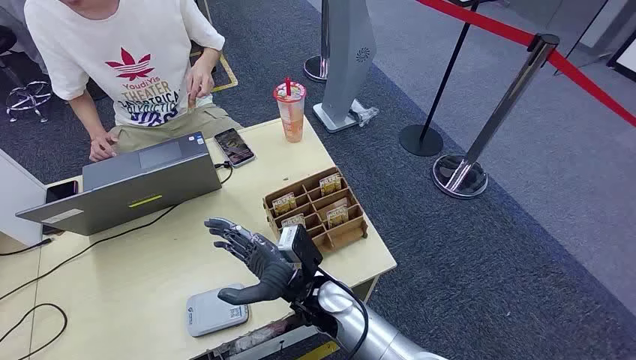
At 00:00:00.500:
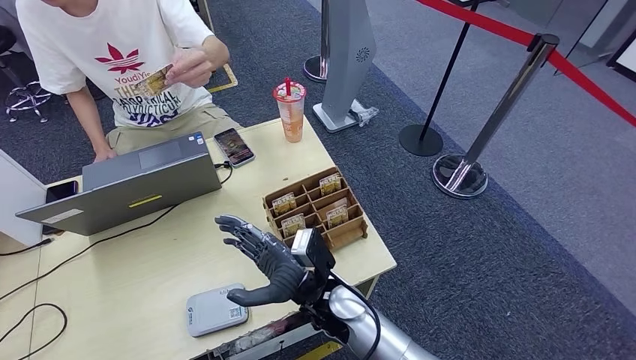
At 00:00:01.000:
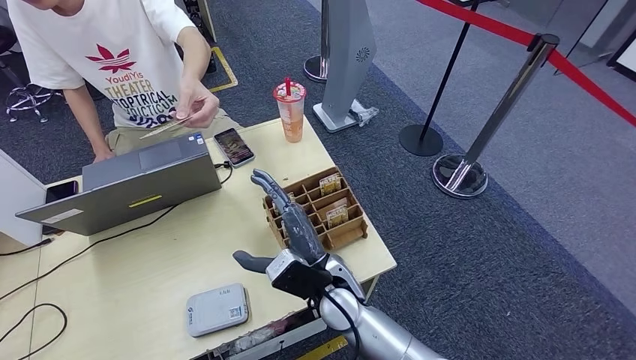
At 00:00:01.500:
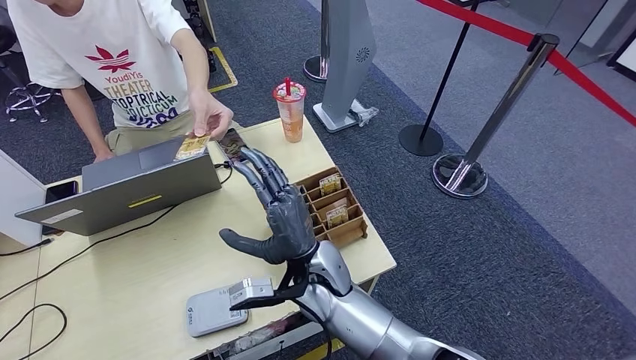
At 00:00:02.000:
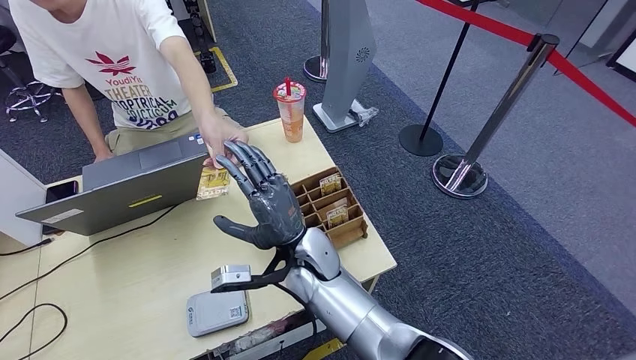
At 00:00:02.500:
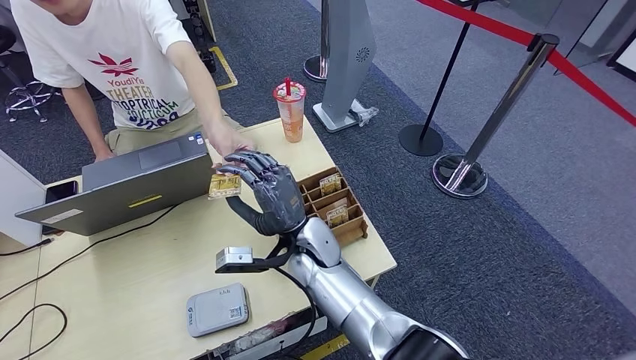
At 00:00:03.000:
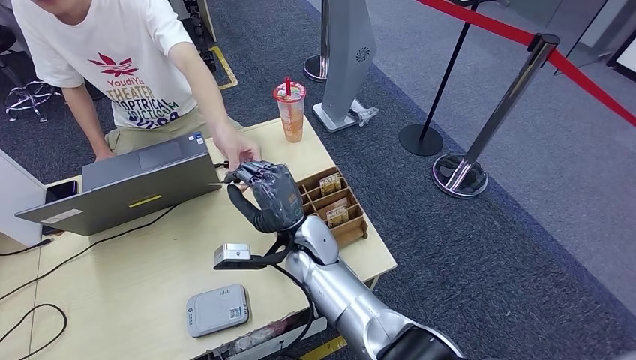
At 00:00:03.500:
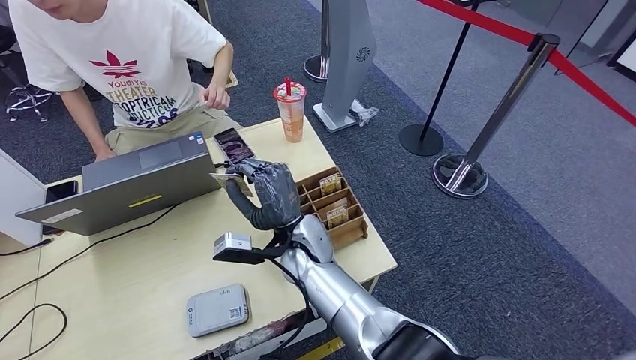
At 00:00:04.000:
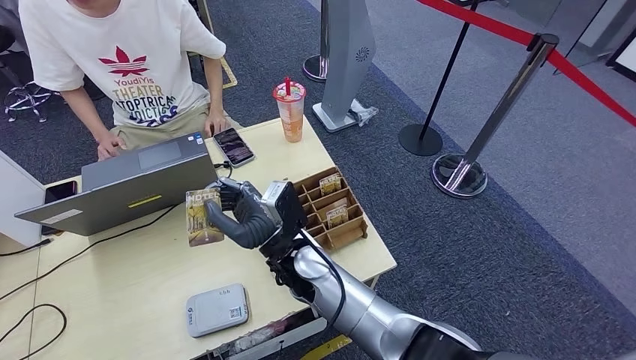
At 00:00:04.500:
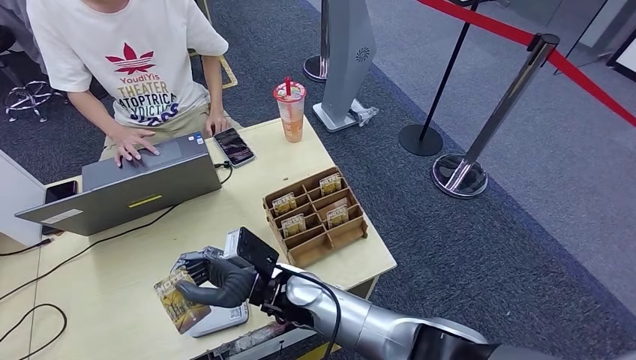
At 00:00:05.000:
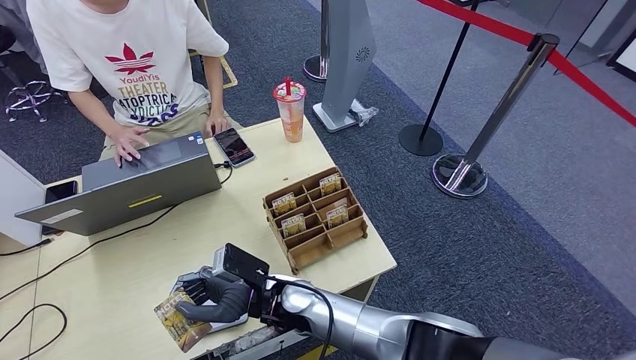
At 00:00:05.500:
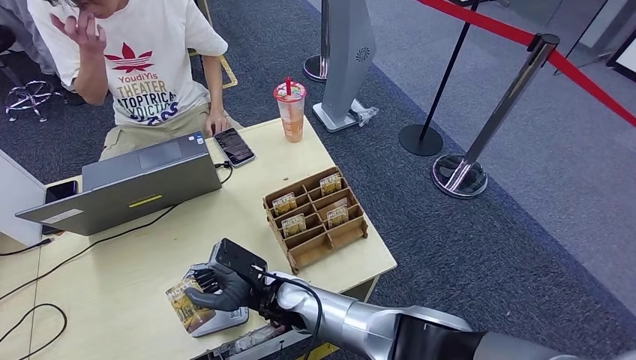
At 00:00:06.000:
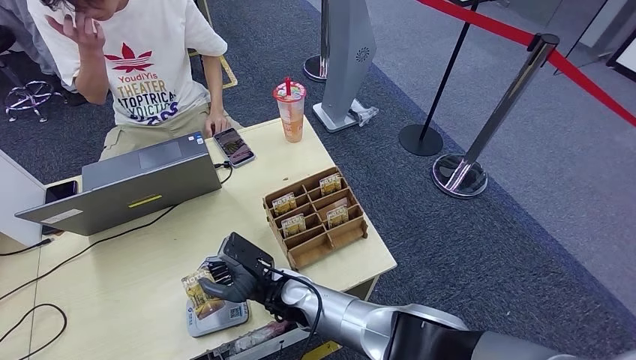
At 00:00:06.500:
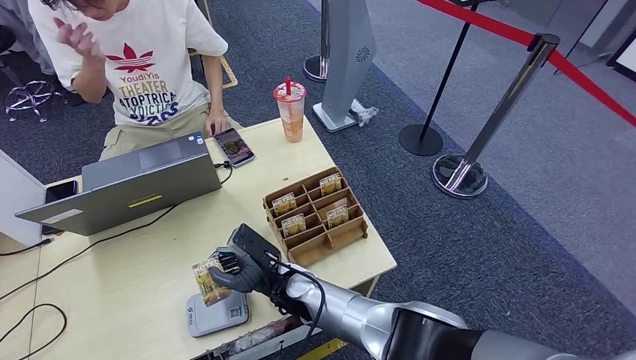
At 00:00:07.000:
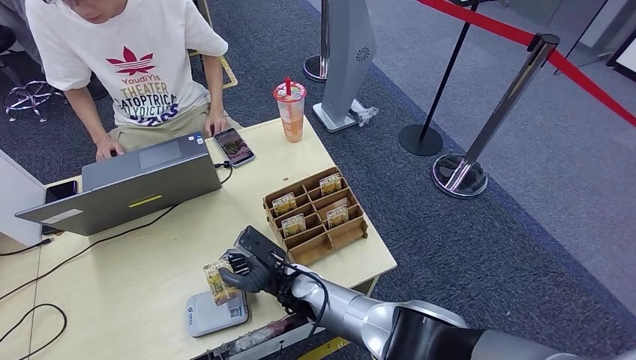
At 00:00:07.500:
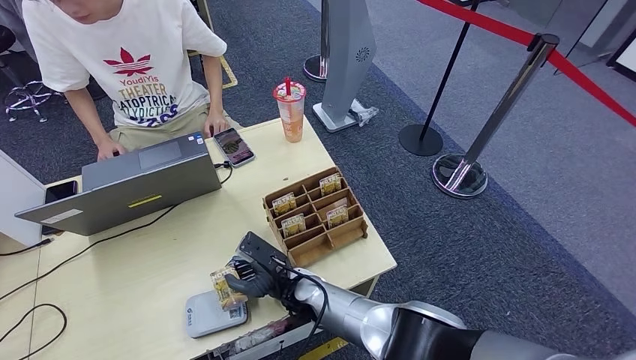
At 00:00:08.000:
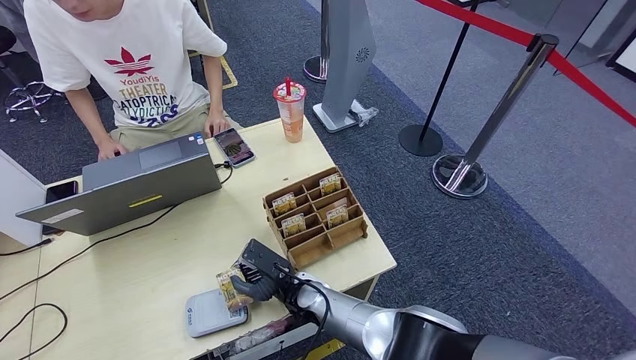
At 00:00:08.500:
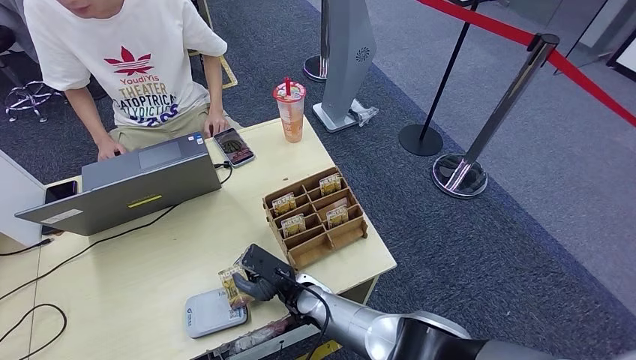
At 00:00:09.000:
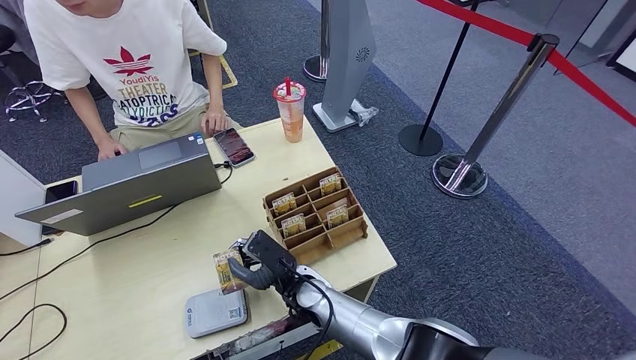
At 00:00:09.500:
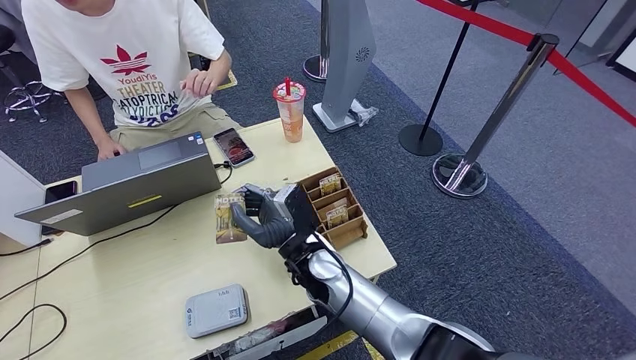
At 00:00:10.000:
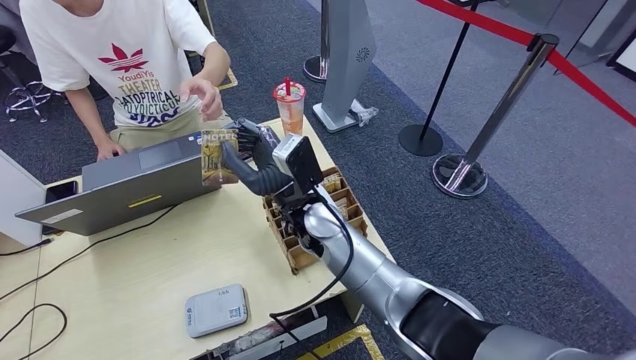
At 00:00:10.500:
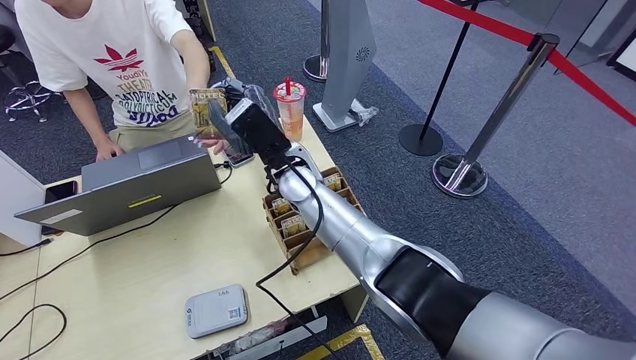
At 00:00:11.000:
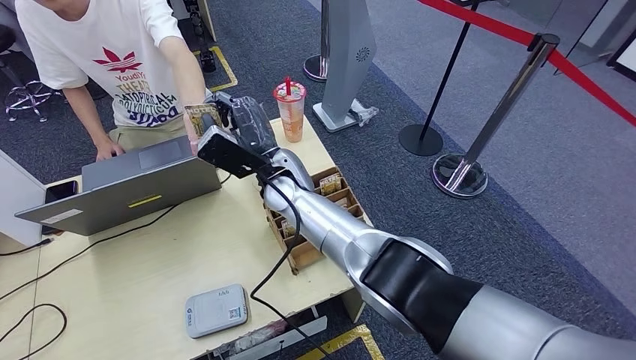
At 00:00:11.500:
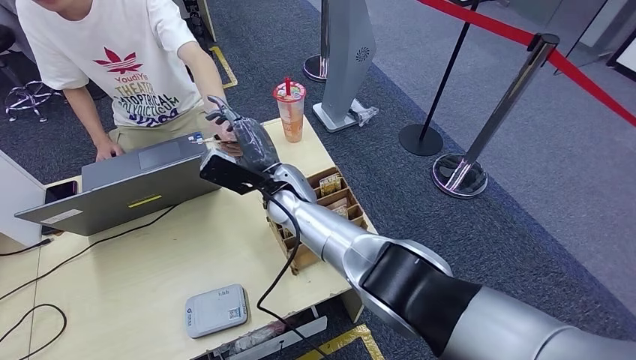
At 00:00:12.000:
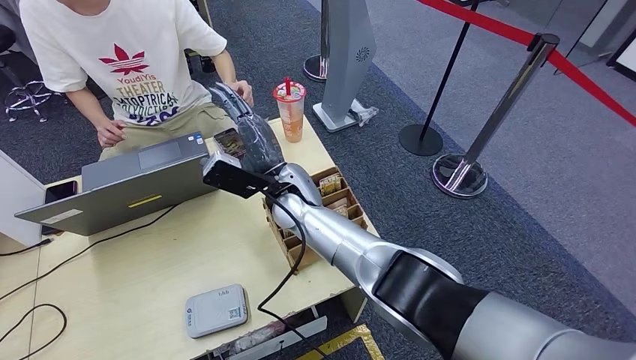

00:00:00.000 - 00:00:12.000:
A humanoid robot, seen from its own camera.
Step, 00:00:00.000 - 00:00:03.000: Take the ID card from the person's hand.
Step, 00:00:03.500 - 00:00:08.500: Place the ID card on the card reader.
Step, 00:00:09.000 - 00:00:11.500: Hand the ID card to the person.
00:00:04.000 - 00:00:06.000: The right hand travels downward by roughly 10 cm.
00:00:06.000 - 00:00:08.000: The right hand shifts by approximately 5 cm.
00:00:08.000 - 00:00:10.000: The right hand shifts some 20 cm upward.
00:00:10.000 - 00:00:12.000: The right hand heads forward, covering some 5 cm.

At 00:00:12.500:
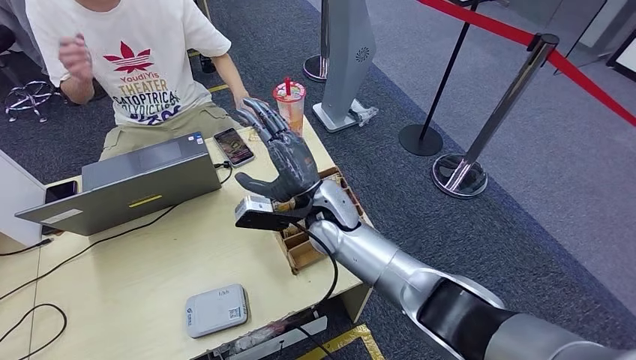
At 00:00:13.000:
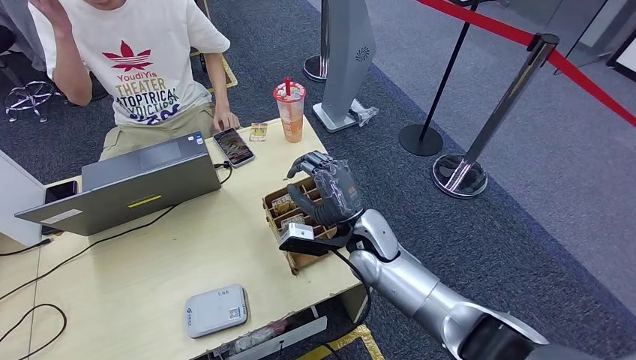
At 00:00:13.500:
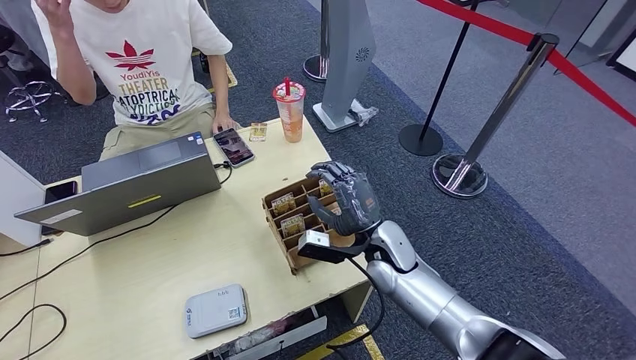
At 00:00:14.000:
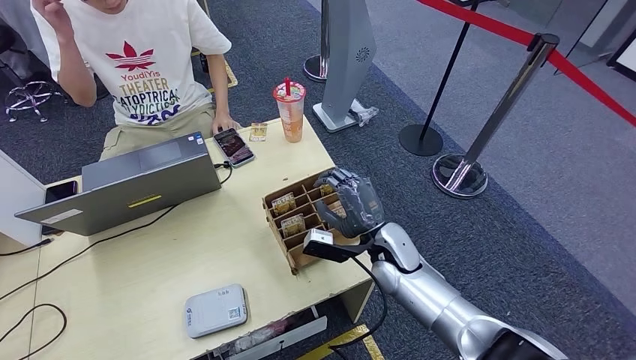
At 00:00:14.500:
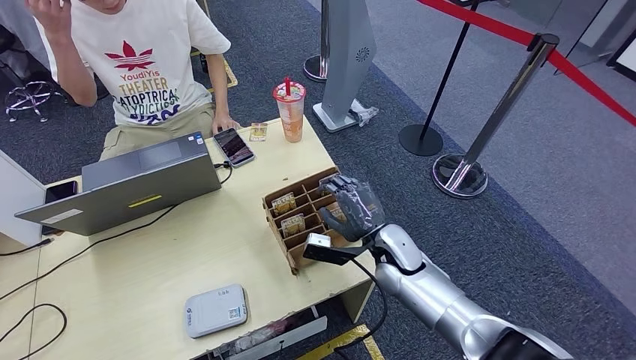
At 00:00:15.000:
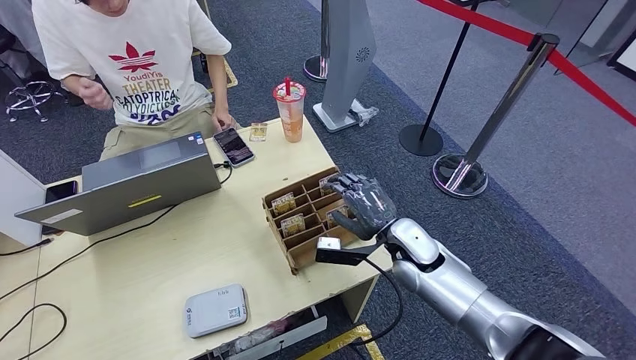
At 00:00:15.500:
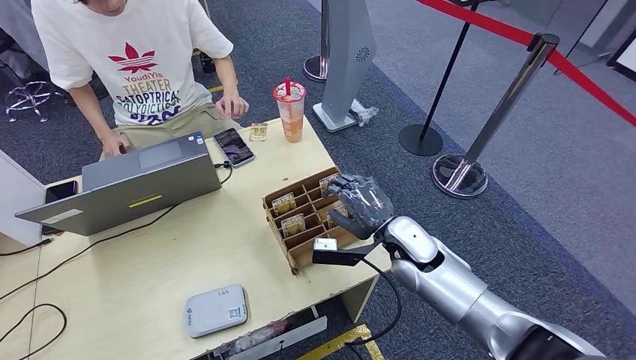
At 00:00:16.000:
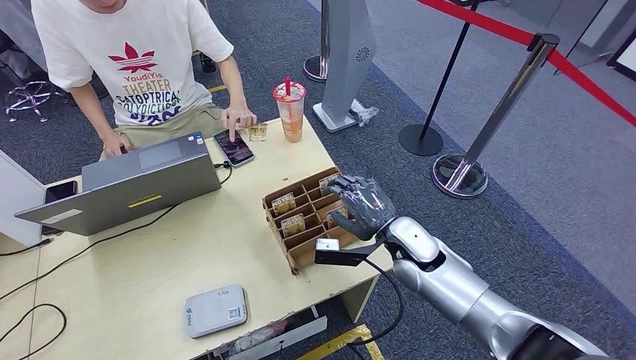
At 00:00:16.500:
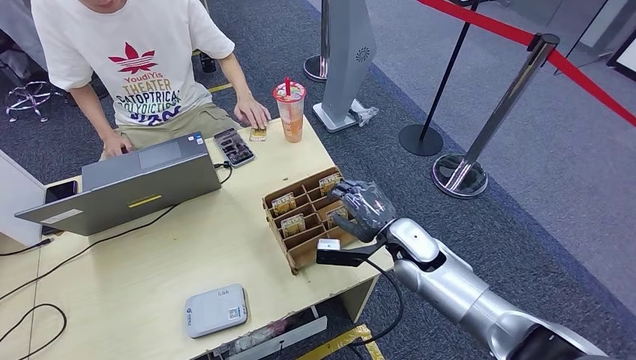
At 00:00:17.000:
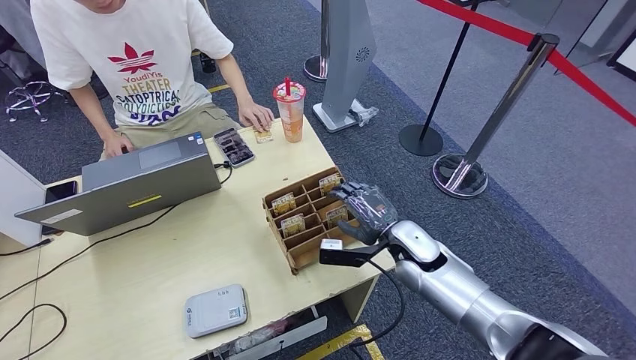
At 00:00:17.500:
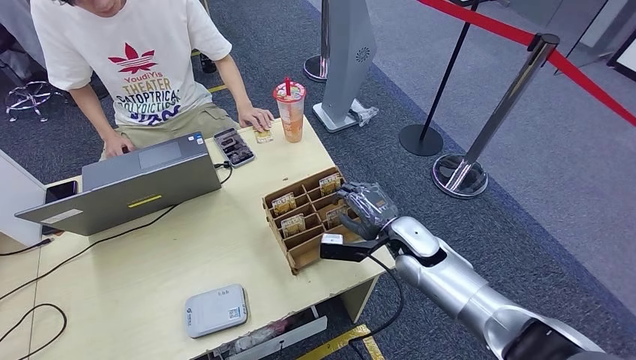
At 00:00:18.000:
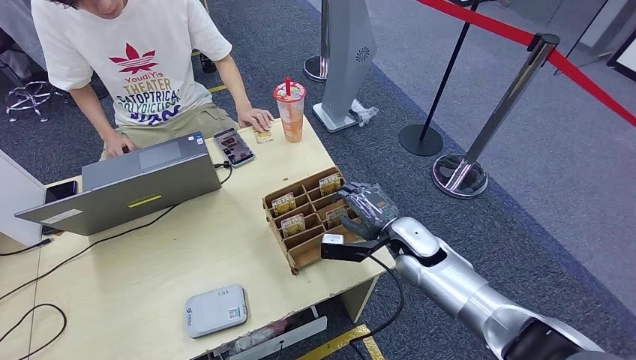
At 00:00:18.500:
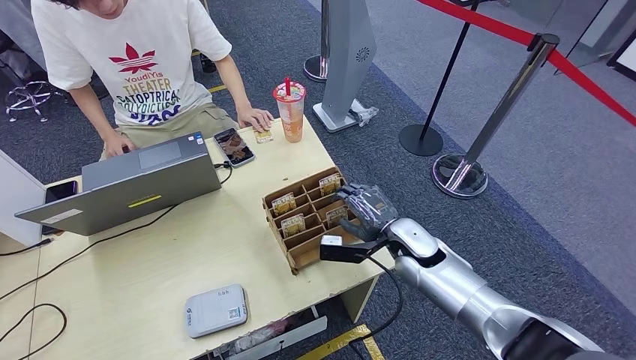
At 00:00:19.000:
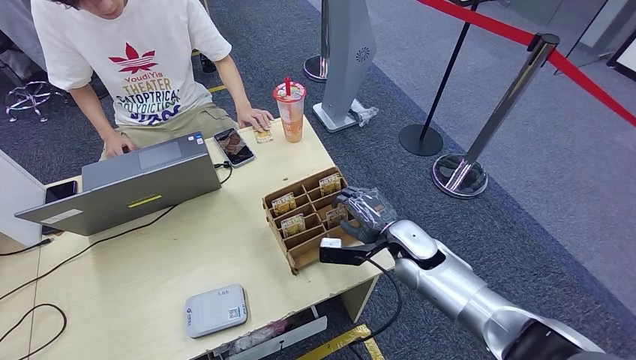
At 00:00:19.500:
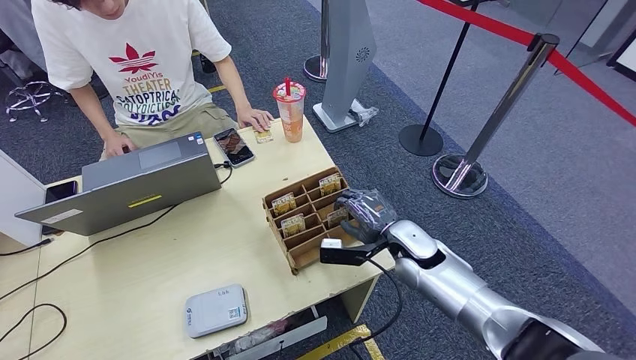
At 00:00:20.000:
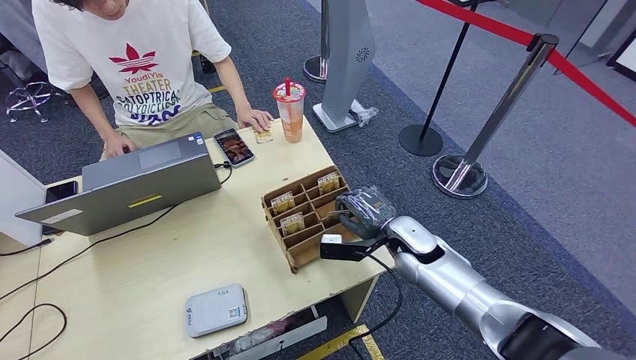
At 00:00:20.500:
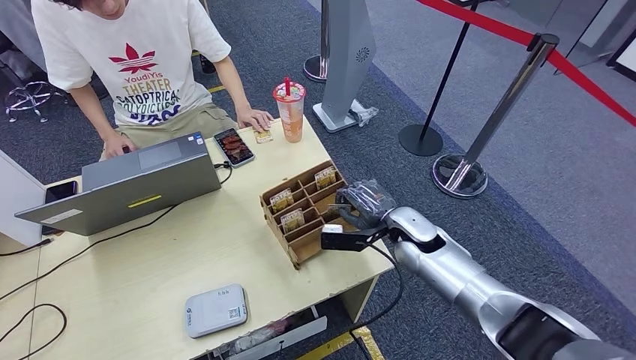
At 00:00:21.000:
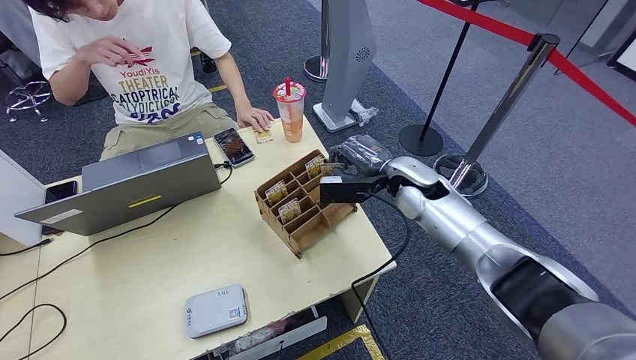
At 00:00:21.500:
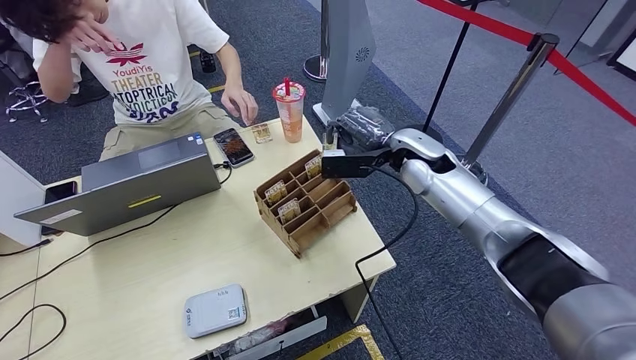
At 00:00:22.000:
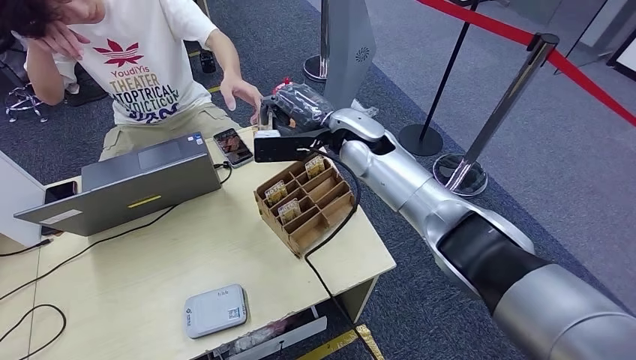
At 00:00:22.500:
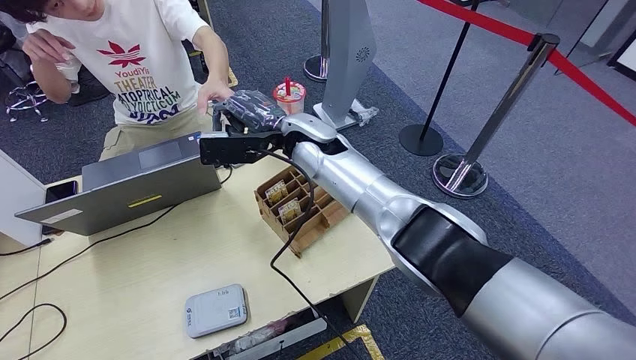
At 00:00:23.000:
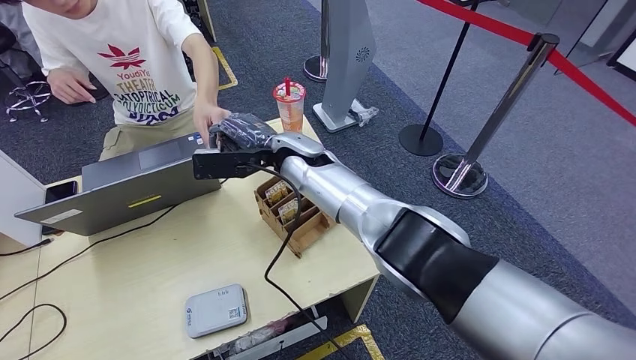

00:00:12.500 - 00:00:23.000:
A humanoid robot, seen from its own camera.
Step, 00:00:12.500 - 00:00:21.000: Pick up the room key from the key card box.
Step, 00:00:21.500 - 00:00:23.000: Hand the room key to the person.
00:00:12.500 - 00:00:14.500: The right hand is displaced to the right, downward and backward by roughly 15 cm.
00:00:14.500 - 00:00:19.000: The hands stay close to where they were, moving slightly.
00:00:19.000 - 00:00:21.000: The right hand goes approximately 15 cm upward and forward.
